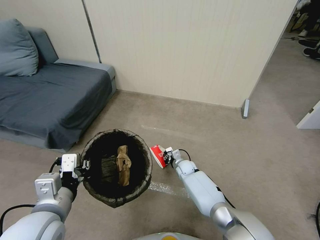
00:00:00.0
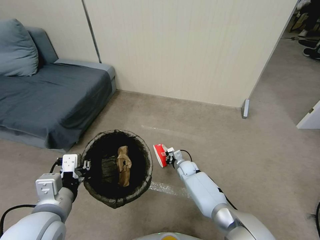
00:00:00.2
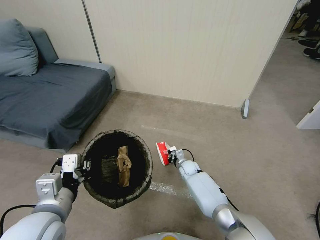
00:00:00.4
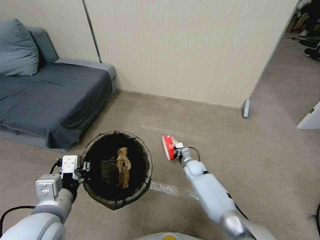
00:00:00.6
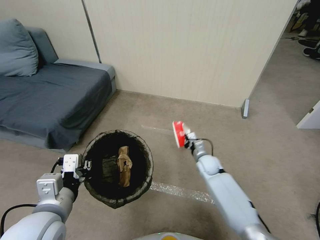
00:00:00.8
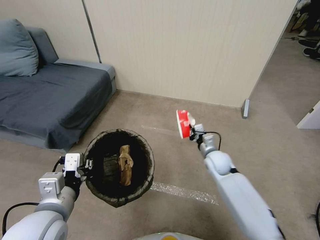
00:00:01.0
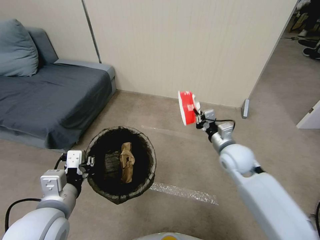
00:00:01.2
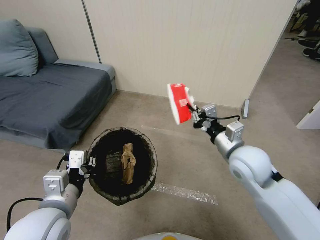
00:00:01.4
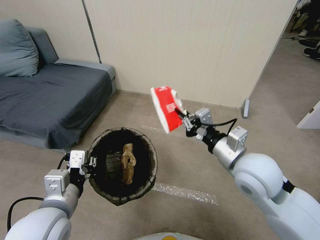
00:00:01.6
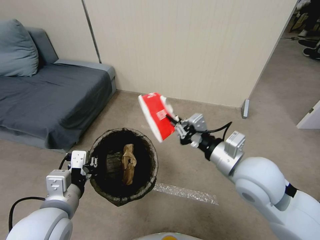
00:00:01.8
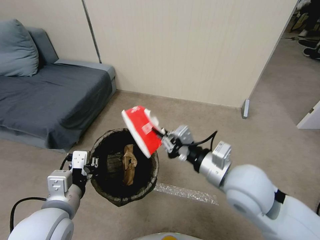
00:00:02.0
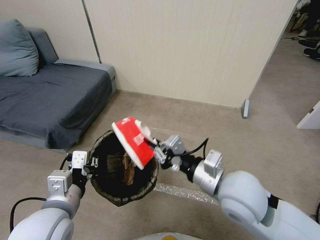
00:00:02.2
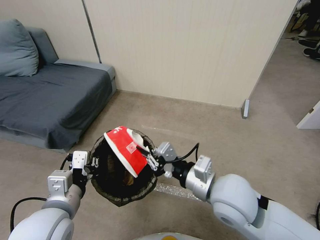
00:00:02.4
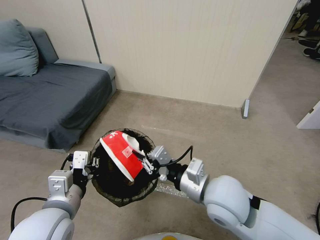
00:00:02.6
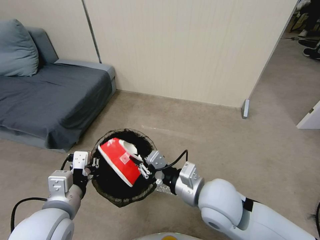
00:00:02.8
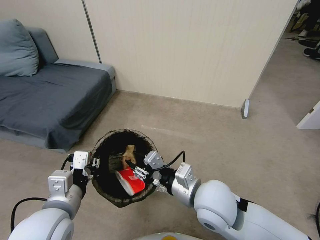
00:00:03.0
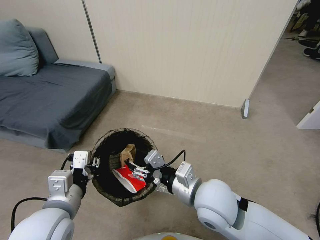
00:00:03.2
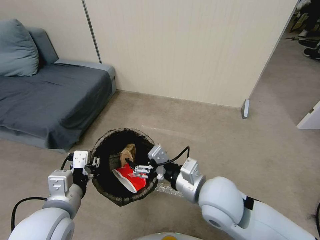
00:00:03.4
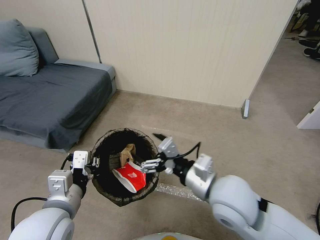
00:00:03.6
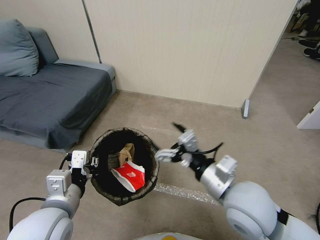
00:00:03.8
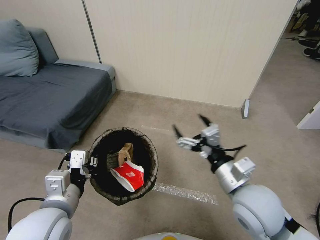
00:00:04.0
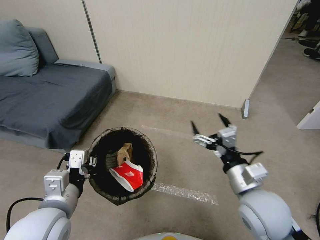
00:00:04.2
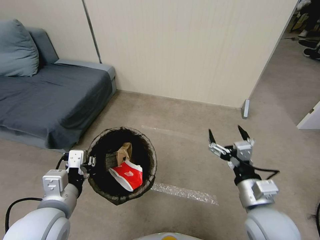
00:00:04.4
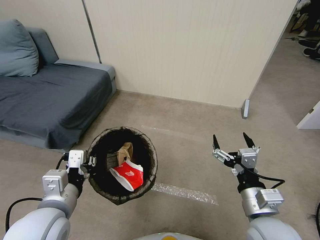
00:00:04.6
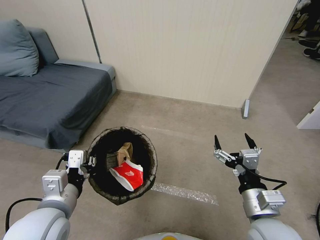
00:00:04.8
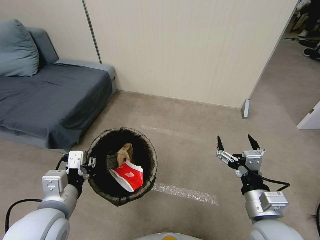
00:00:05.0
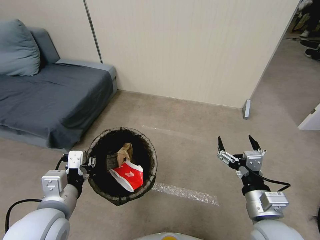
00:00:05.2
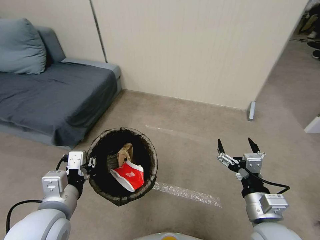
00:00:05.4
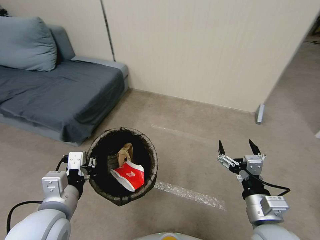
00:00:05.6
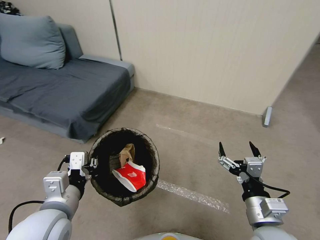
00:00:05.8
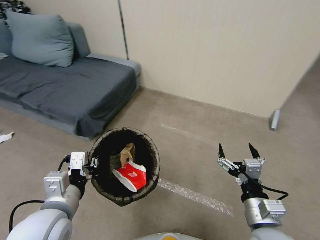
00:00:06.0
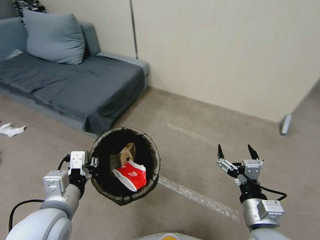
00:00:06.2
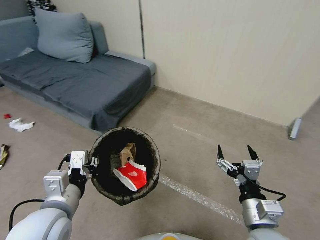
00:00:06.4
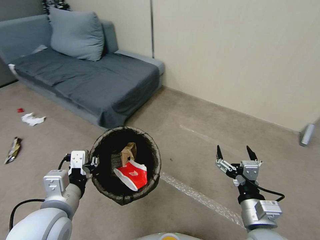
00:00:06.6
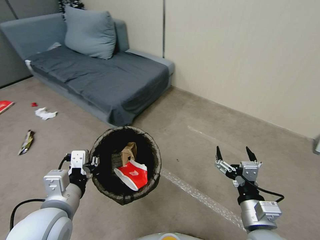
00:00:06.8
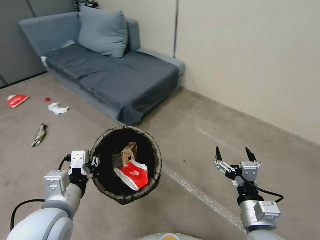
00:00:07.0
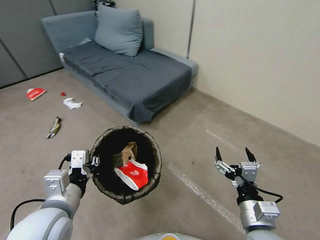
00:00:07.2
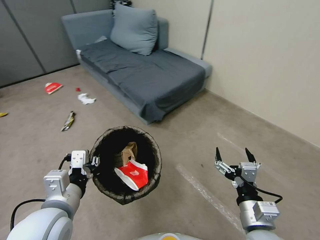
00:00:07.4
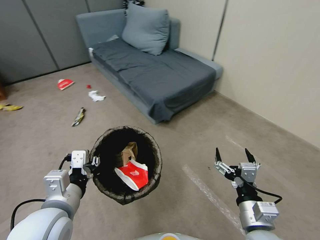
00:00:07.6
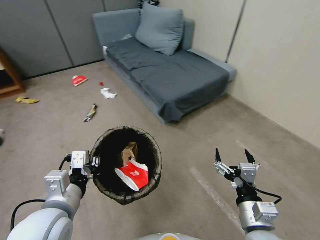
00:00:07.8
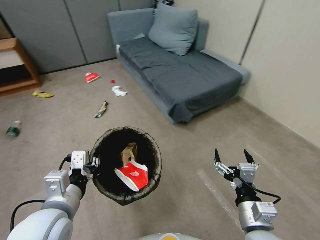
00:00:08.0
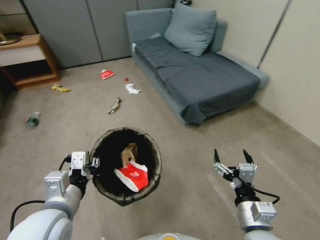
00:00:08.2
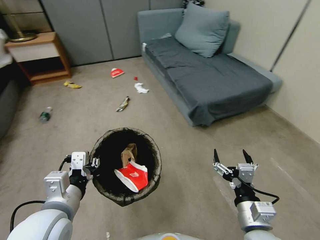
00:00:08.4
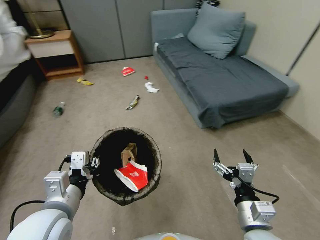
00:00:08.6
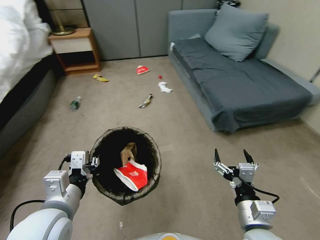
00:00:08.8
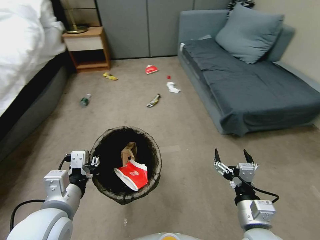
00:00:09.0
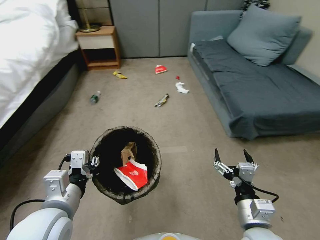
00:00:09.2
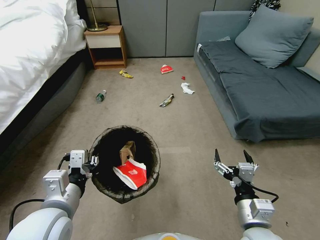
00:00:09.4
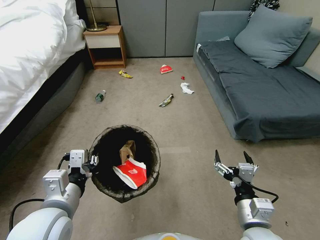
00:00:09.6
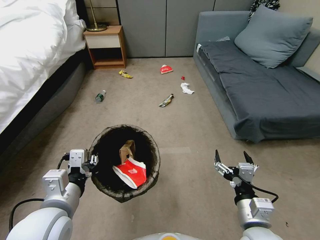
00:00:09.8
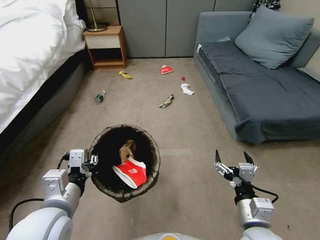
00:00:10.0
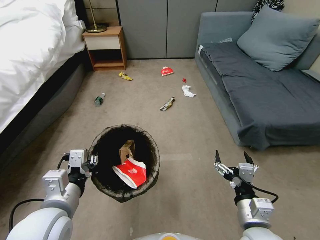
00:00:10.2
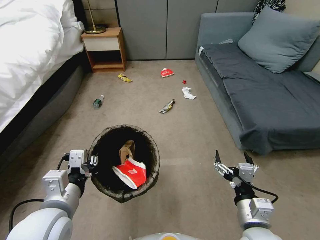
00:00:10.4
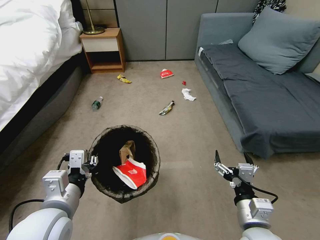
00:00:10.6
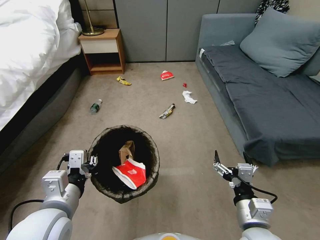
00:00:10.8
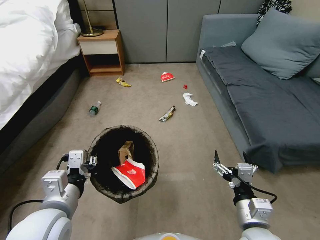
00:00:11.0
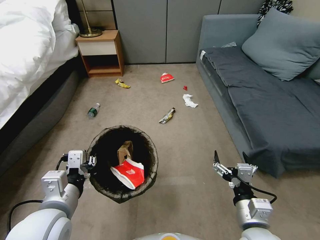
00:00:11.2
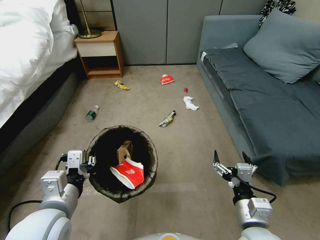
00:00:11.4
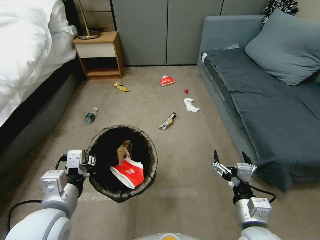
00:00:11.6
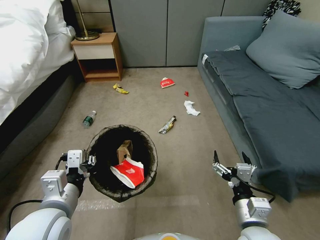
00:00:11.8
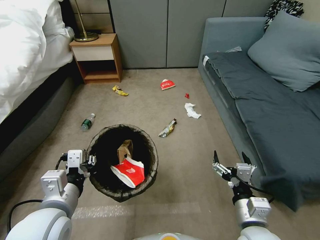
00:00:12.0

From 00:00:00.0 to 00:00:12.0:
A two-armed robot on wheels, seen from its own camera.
Task of the whole recording: Pick up the trash bin, then pick up the garbage from the floor and place it into the trash bin.
From 00:00:00.0 to 00:00:01.6: The right gripper goes about 40 cm upward and backward.
From 00:00:01.6 to 00:00:03.0: The right gripper moves to the left, downward and backward, some 10 cm.
From 00:00:03.0 to 00:00:04.4: The right gripper moves to the right, some 10 cm, and opens.
From 00:00:04.4 to 00:00:06.0: The right gripper changes place by about 5 cm.

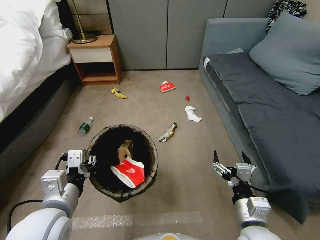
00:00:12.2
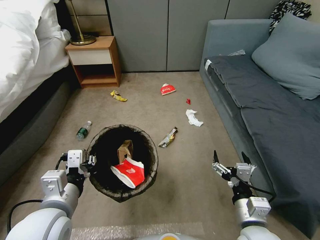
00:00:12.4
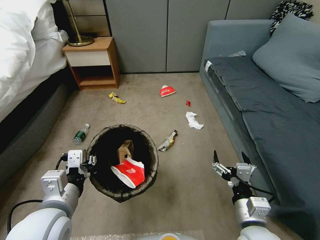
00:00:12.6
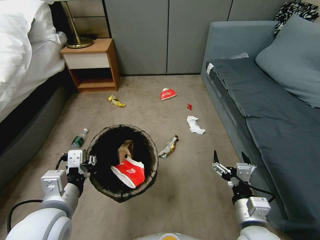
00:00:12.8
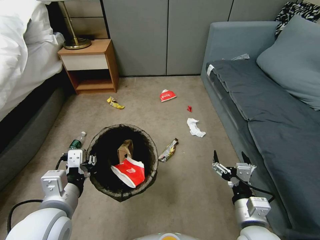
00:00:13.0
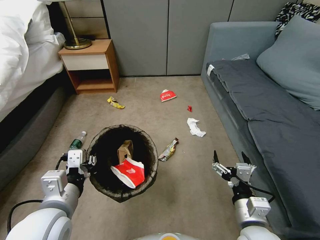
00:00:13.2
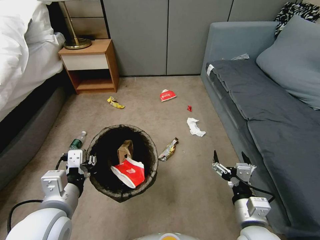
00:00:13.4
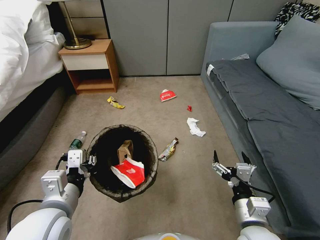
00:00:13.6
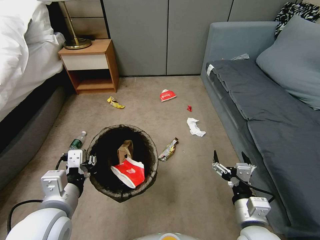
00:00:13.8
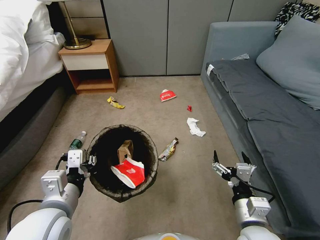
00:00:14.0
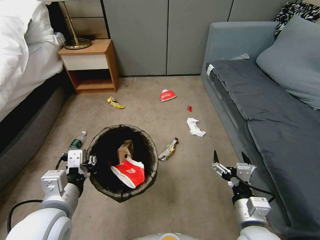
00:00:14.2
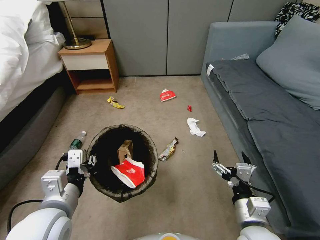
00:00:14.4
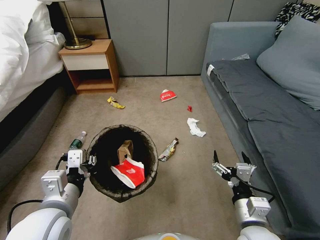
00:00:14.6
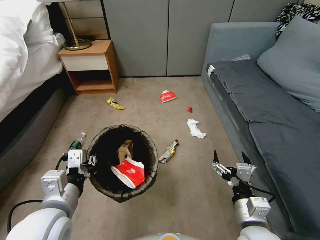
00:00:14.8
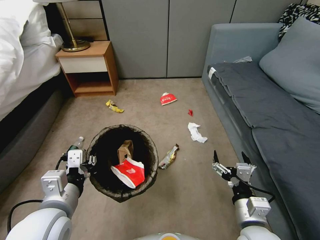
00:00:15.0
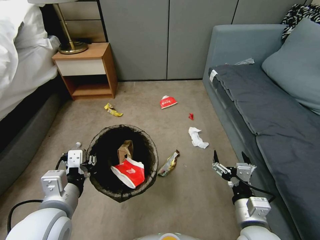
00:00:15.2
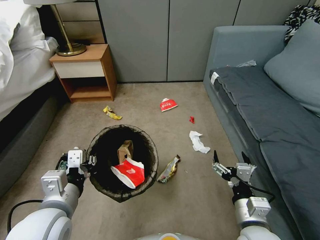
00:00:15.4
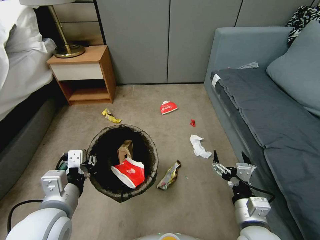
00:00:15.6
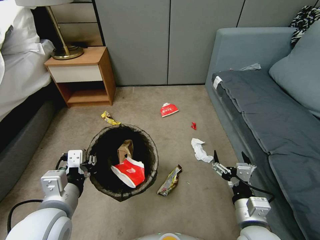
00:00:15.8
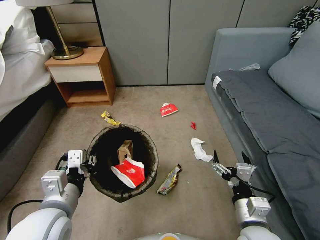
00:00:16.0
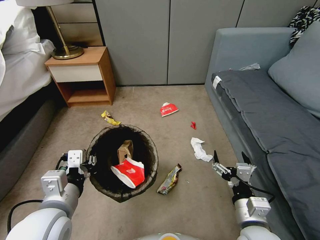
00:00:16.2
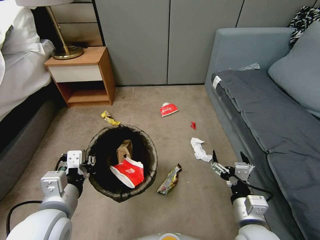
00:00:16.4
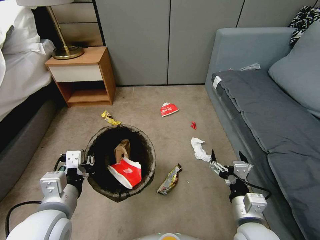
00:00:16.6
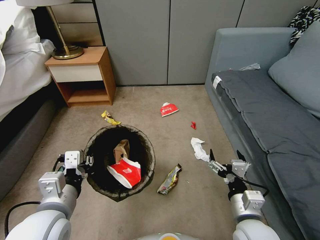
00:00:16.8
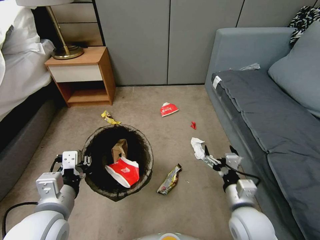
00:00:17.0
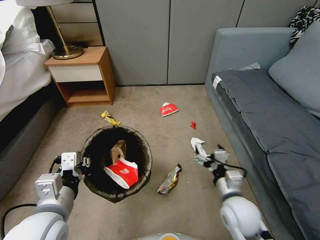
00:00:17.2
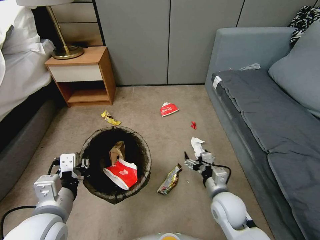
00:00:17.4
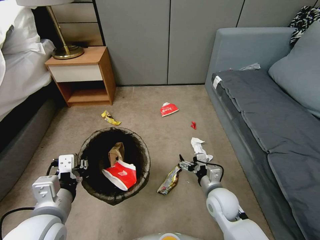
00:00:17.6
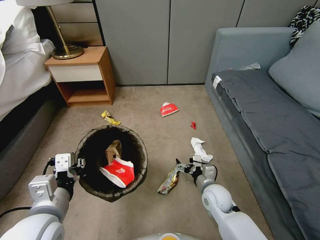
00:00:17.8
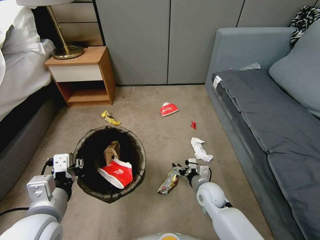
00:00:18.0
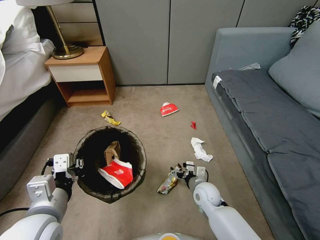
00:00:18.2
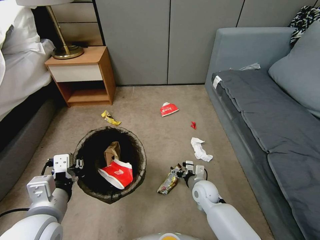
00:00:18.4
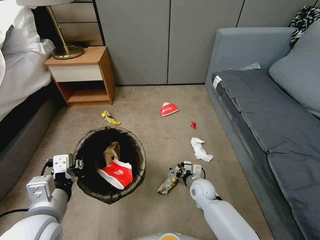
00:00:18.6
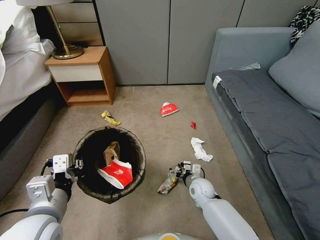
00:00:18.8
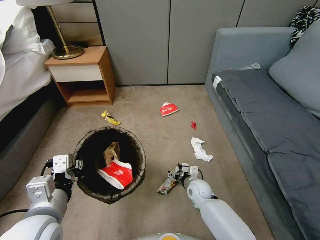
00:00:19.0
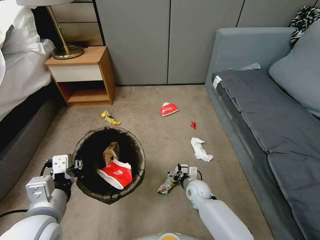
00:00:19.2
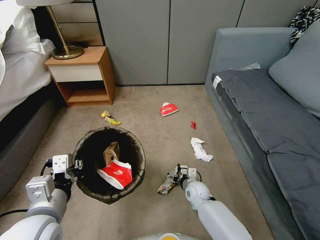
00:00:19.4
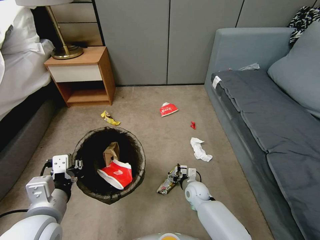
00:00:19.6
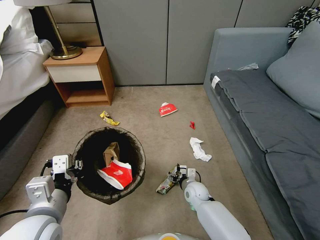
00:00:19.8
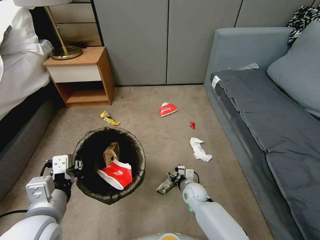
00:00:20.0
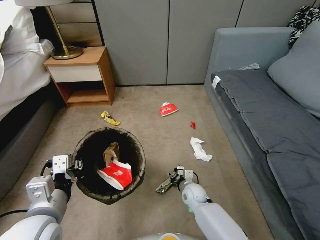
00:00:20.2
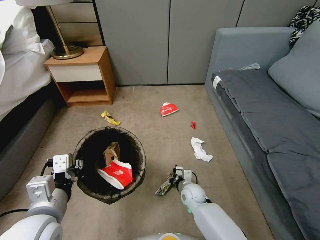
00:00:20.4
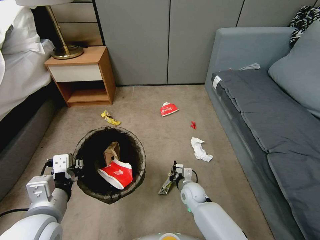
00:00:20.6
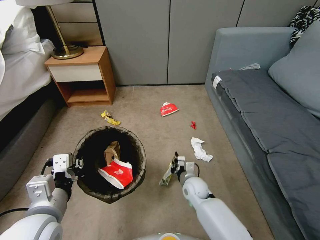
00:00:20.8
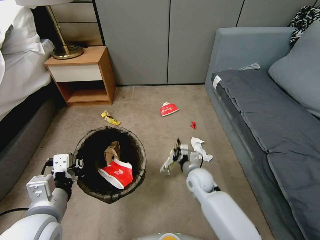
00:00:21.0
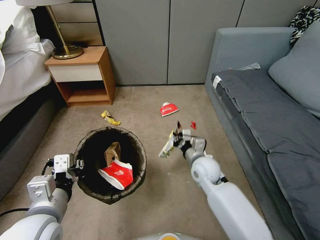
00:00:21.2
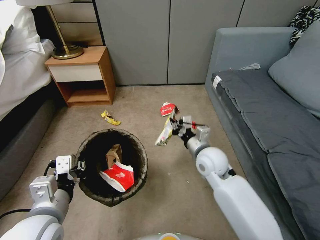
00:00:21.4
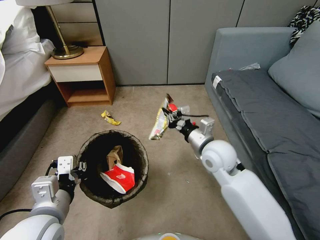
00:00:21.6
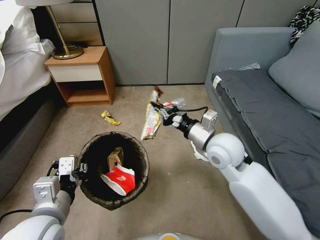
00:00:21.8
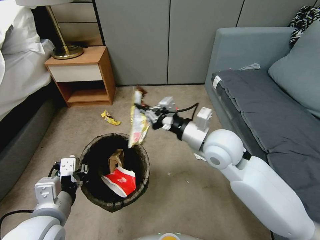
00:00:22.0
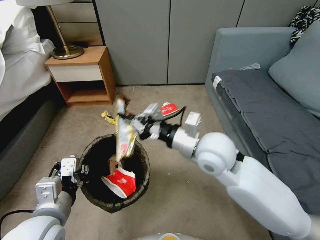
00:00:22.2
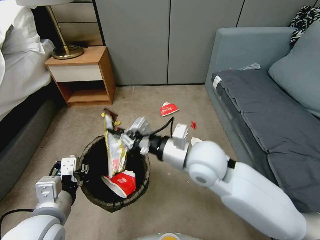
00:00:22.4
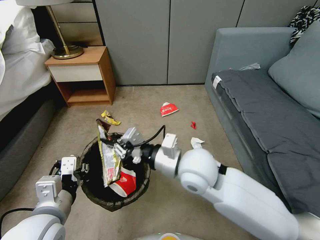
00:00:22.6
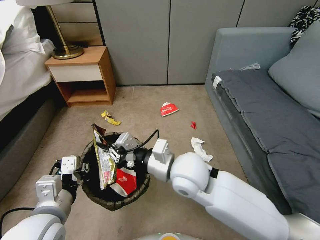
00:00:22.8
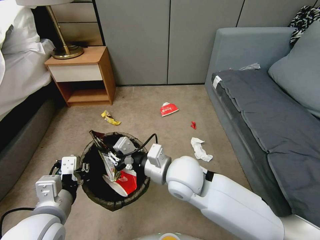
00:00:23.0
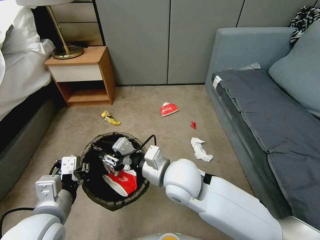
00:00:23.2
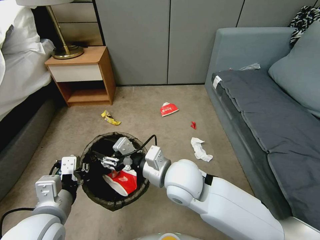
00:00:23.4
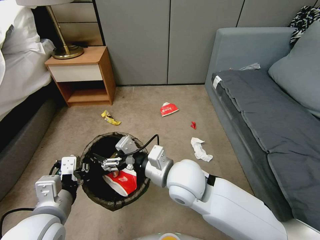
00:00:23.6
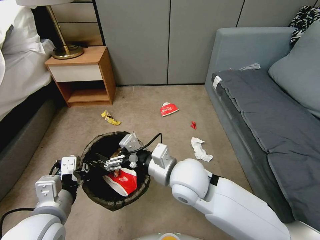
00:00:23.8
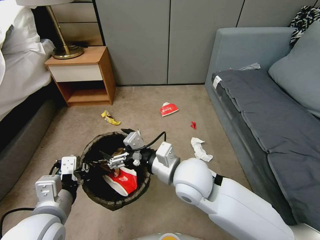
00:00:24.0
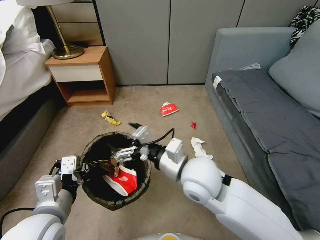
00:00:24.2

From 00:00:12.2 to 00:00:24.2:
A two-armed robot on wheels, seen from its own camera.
Task of the whole recording: Pick up the trash bin, then pick up the garbage from the floor and place it into the trash bin.
From 00:00:12.2 to 00:00:15.2: The two grippers keep their place.
From 00:00:16.6 to 00:00:18.2: The right gripper moves forward and downward, some 20 cm.
From 00:00:18.2 to 00:00:19.8: The right gripper goes roughly 5 cm downward.
From 00:00:19.8 to 00:00:21.2: The right gripper moves upward, about 20 cm, and closes its fingers.
From 00:00:21.2 to 00:00:22.6: The right gripper travels upward by roughly 15 cm.
From 00:00:22.6 to 00:00:24.2: The right gripper opens up.
